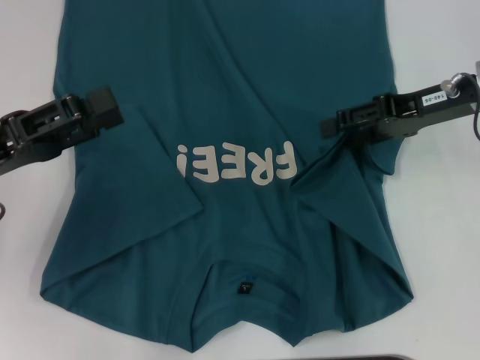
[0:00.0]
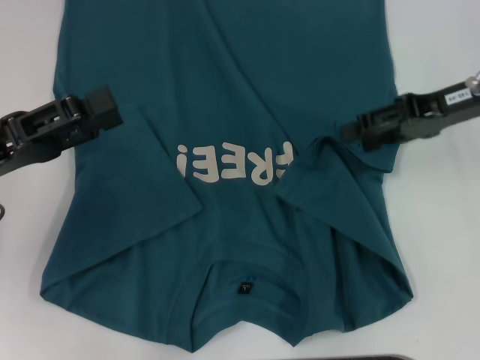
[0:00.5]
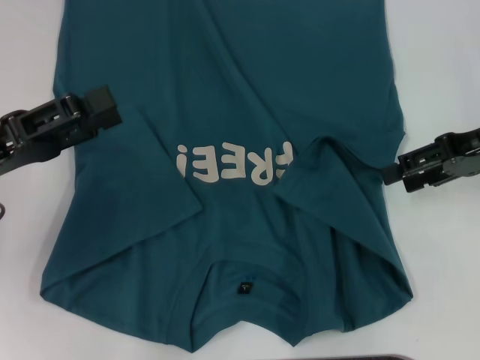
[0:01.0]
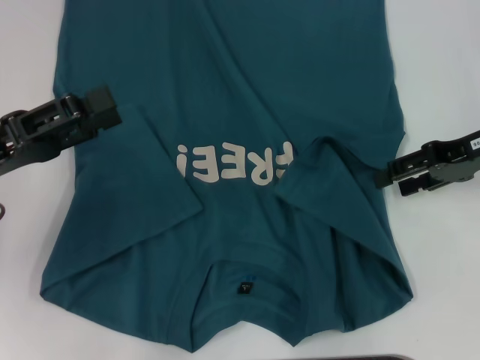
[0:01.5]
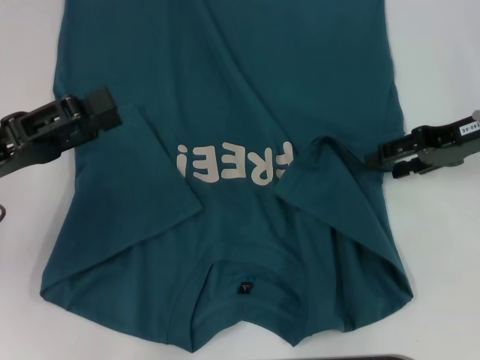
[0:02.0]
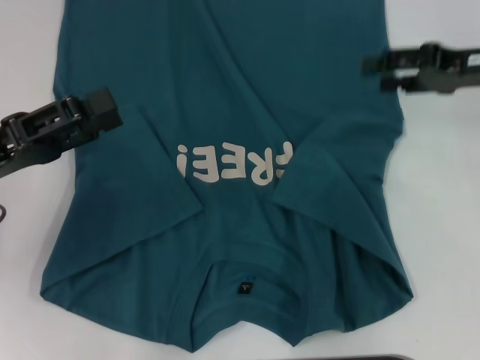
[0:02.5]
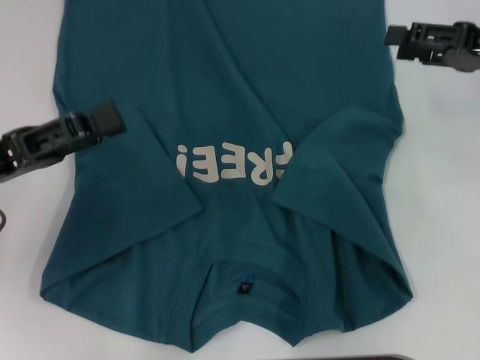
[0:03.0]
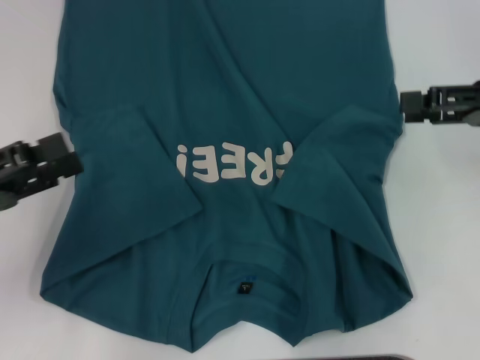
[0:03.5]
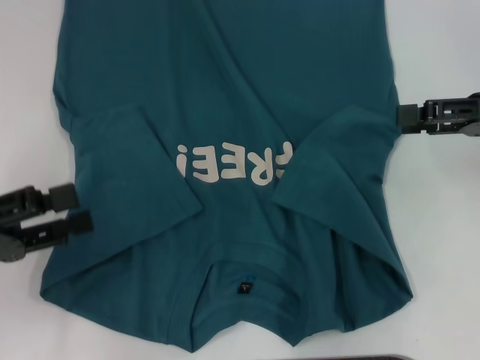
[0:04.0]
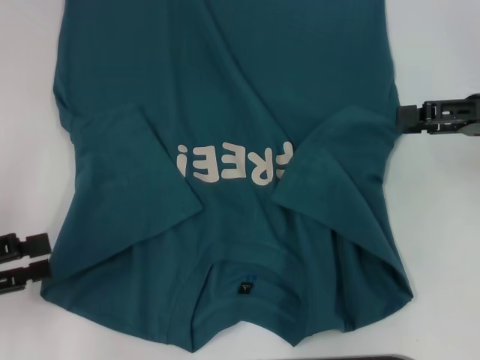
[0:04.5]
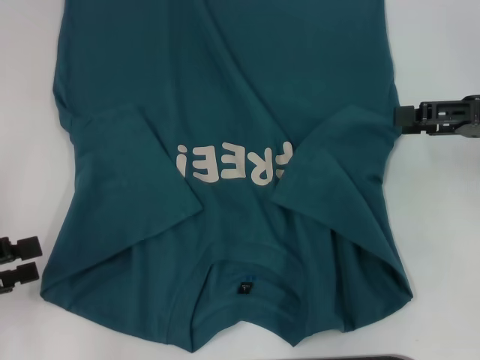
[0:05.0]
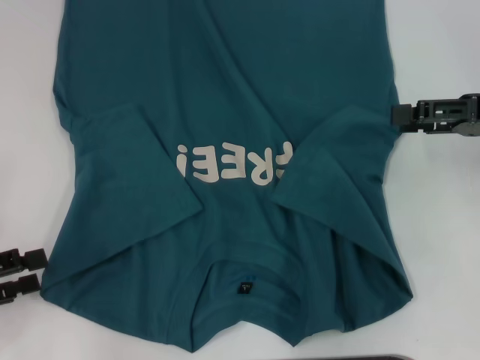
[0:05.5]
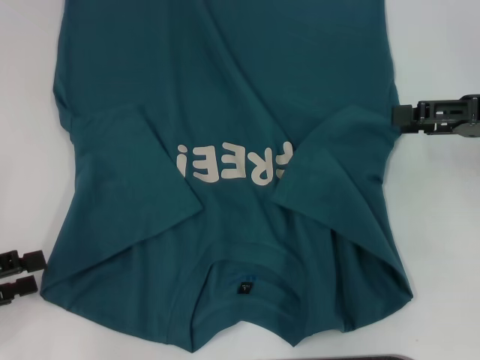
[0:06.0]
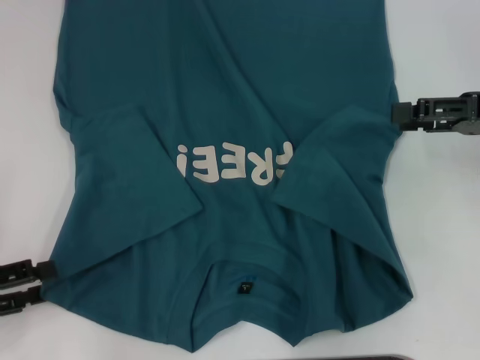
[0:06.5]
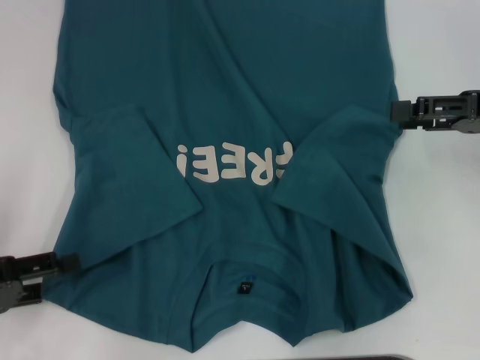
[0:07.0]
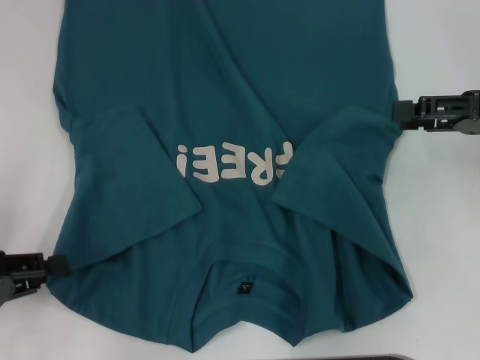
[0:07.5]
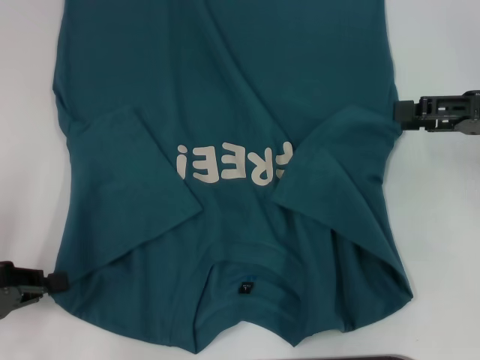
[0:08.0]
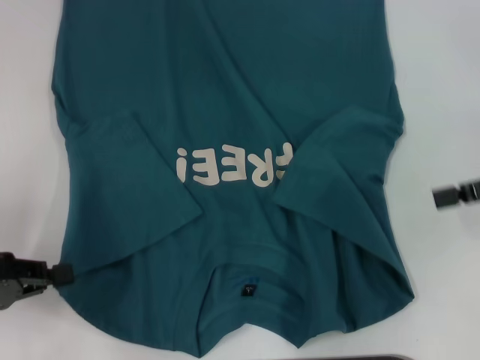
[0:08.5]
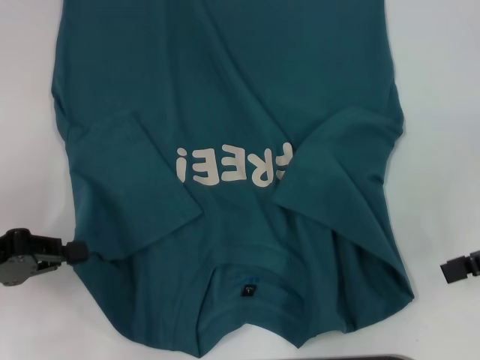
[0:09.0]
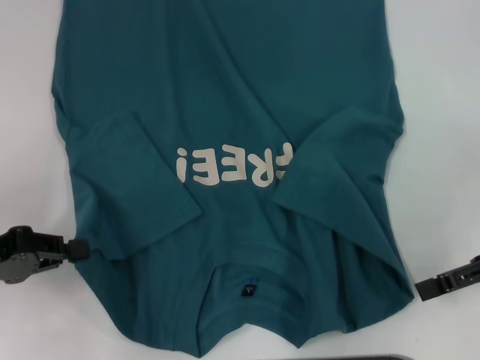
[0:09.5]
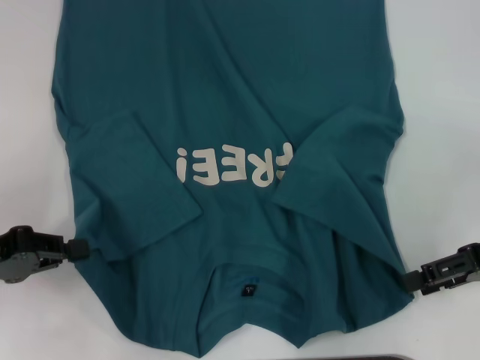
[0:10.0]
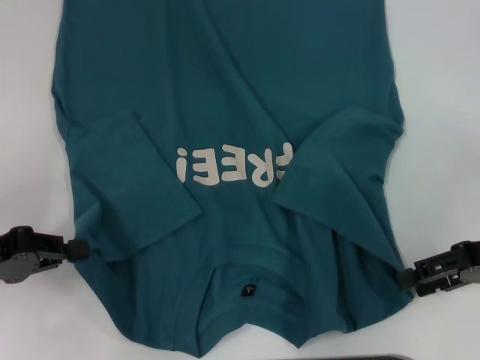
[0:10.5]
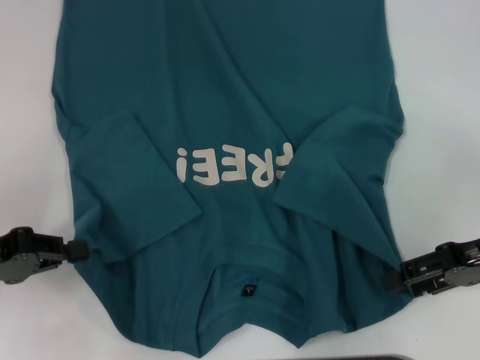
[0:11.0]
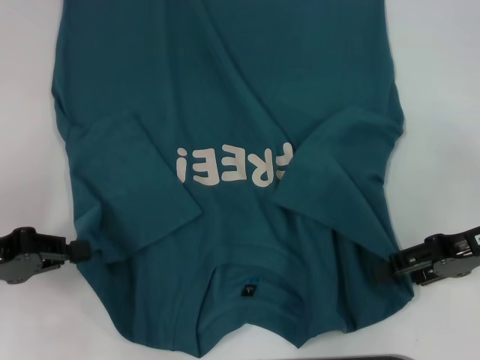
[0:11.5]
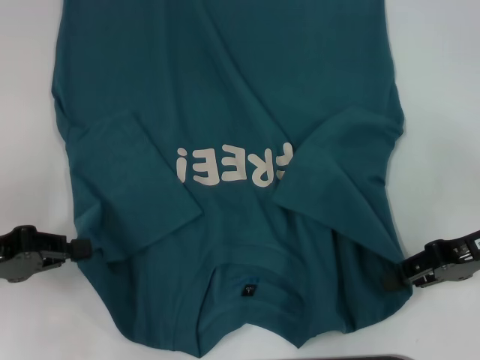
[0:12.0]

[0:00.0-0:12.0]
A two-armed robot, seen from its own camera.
Step, 0:00.0 to 0:02.5: Fold the bottom right sleeve to the right.
Step, 0:03.0 to 0:07.5: Grab the bottom left corner with your left hand.
0:00.0 to 0:02.0: There are only small adjustments of the grippers.
0:02.0 to 0:04.0: The left gripper ends up approximately 5 cm from where it was; the right gripper ends up some 5 cm from where it was.
0:04.0 to 0:06.0: The left gripper moves some 5 cm.
0:06.0 to 0:08.0: The left gripper closes up.
0:08.0 to 0:10.0: The right gripper travels backward by some 5 cm.
0:10.0 to 0:12.0: The grippers make only small movements.

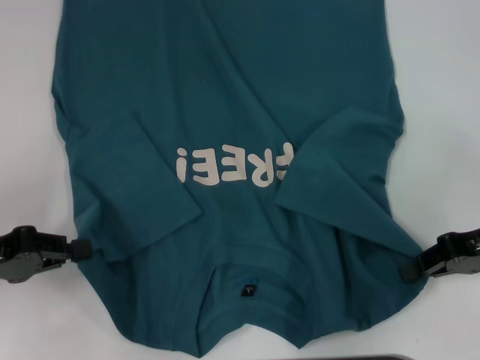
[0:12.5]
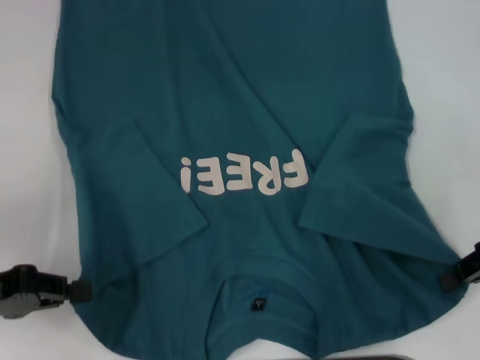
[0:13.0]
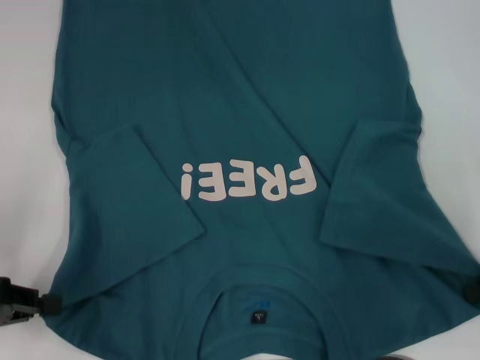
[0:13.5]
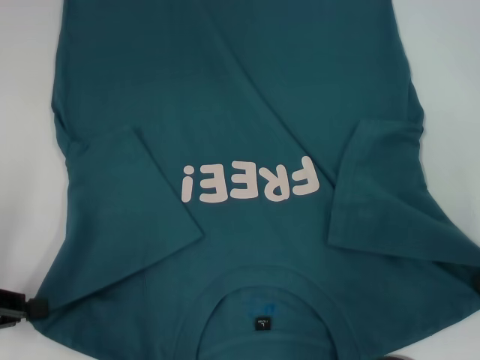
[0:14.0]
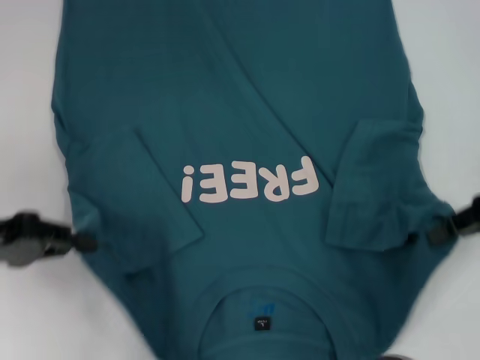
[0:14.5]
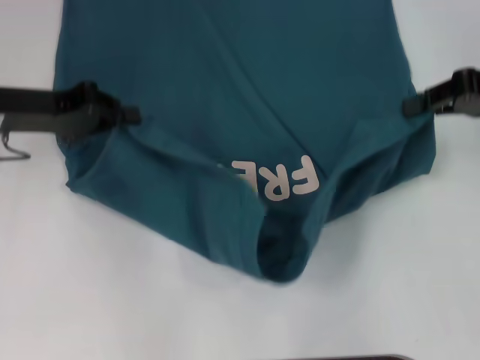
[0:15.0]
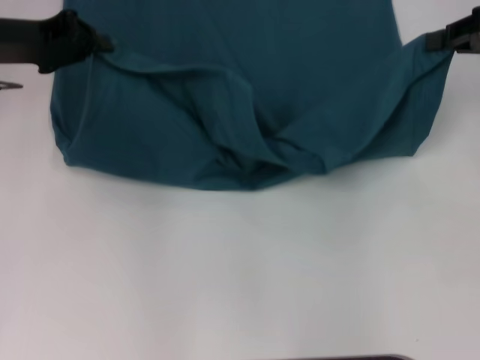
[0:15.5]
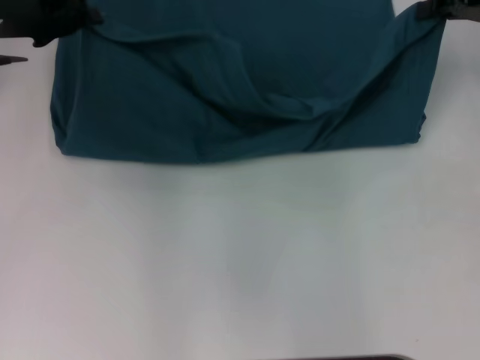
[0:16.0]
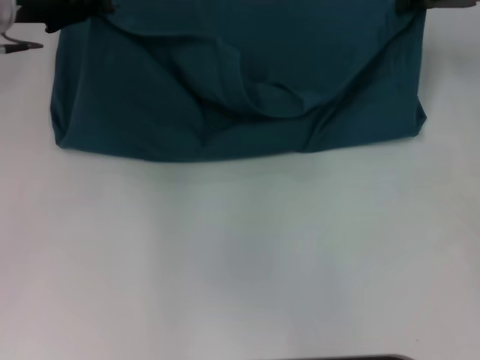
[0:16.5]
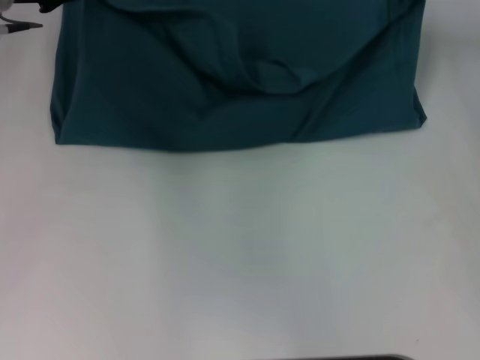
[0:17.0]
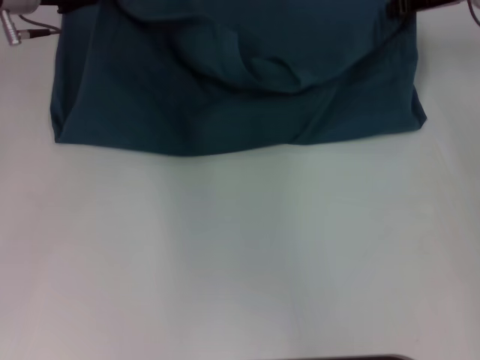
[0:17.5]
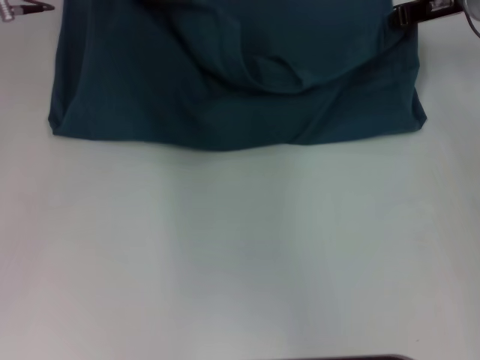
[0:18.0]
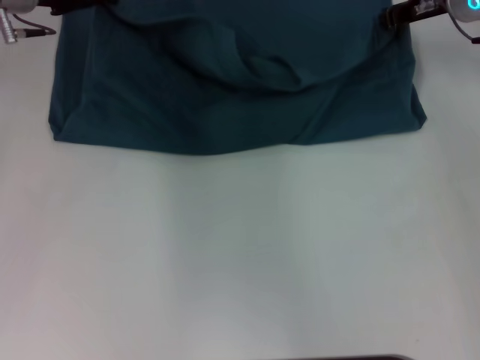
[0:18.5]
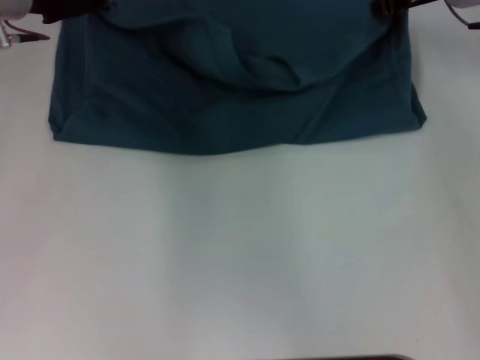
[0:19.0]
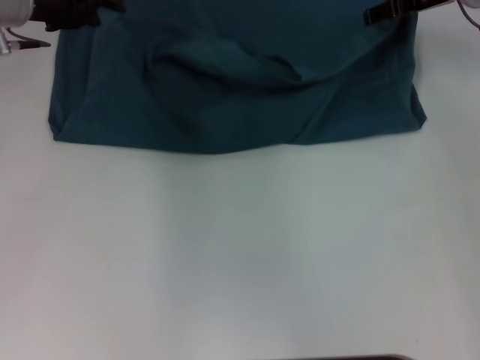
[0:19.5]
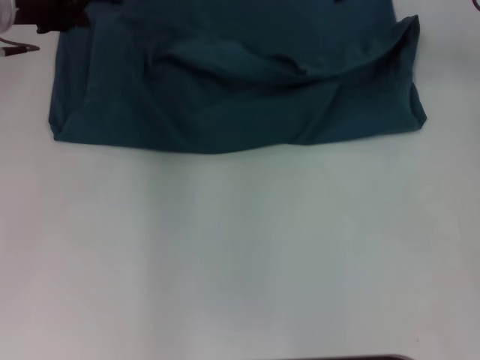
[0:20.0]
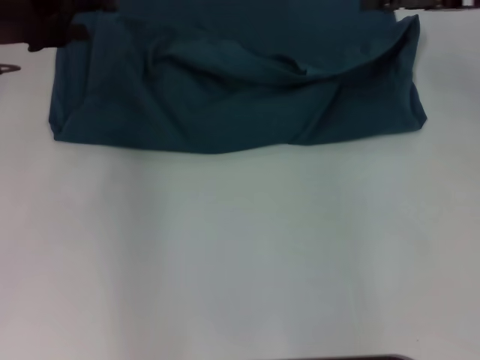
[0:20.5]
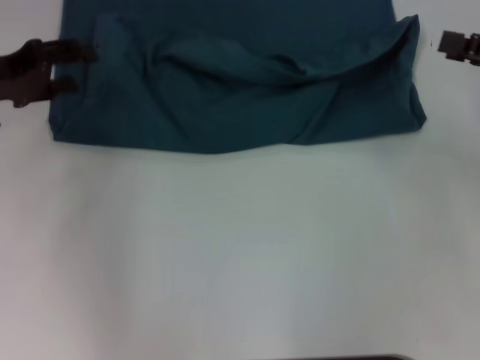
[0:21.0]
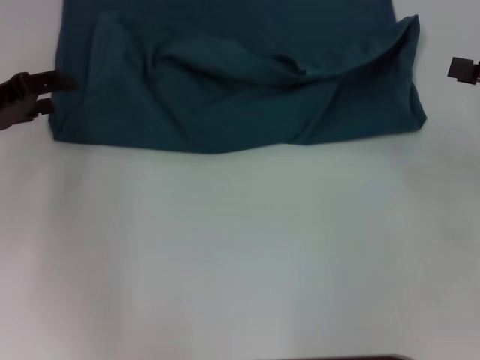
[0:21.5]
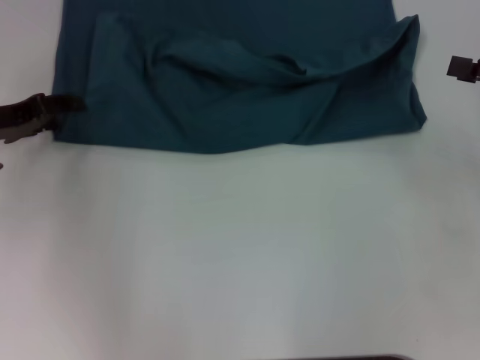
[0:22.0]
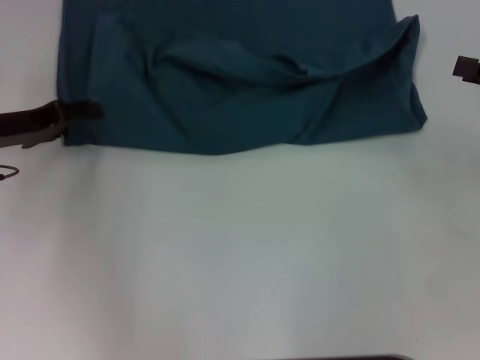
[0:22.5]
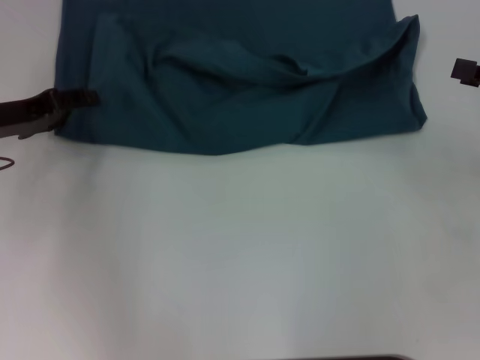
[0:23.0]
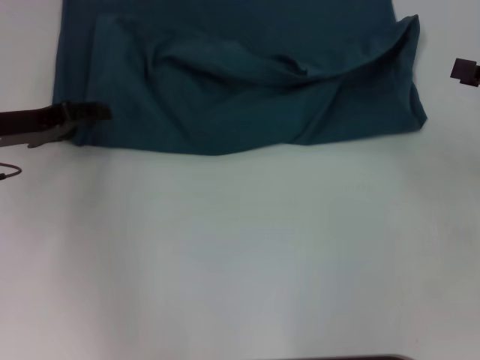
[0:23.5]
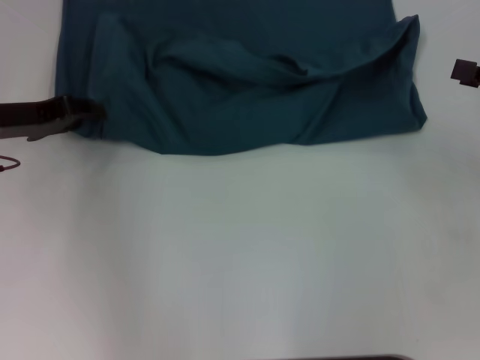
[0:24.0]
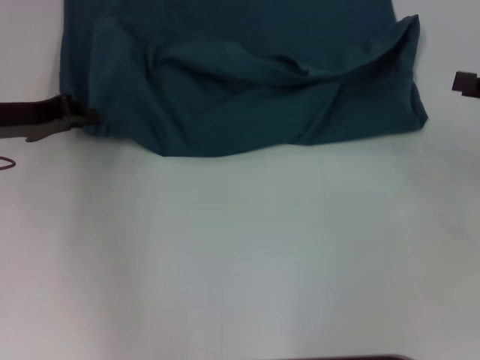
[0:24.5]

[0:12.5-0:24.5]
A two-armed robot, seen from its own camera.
Step, 0:12.5 to 0:19.5: Fold the clothes to the left.
Step, 0:12.5 to 0:19.5: Fold the clothes to the right.
0:12.5 to 0:14.5: The right gripper shifts approximately 5 cm upward.
0:14.5 to 0:16.5: Both grippers move forward, some 15 cm.
0:16.5 to 0:18.5: The right gripper moves approximately 5 cm.
0:18.5 to 0:20.5: The left gripper shifts some 5 cm backward, and opens, while the right gripper heads backward and to the right, covering about 10 cm, and opens its fingers.
0:20.5 to 0:22.5: The left gripper shifts roughly 10 cm downward and backward; the right gripper shifts about 15 cm backward, to the right and downward.
0:22.5 to 0:24.5: The left gripper closes up.

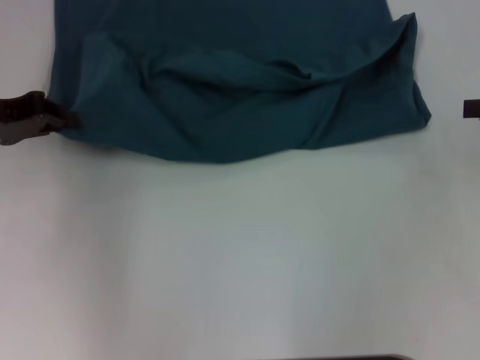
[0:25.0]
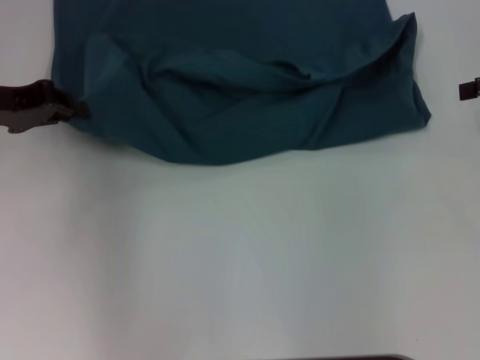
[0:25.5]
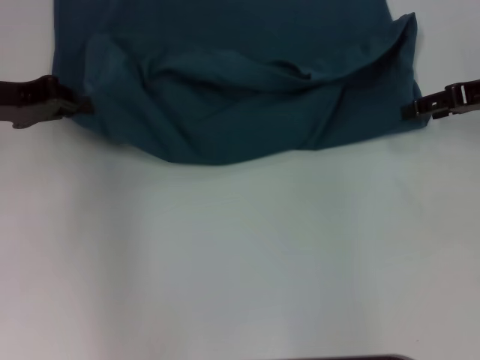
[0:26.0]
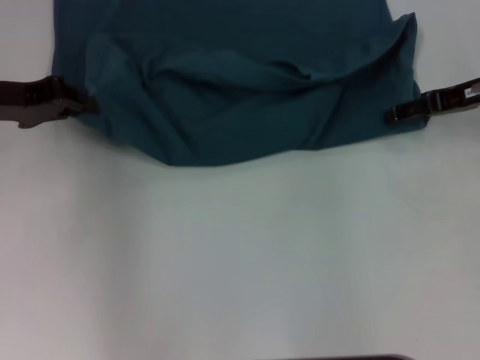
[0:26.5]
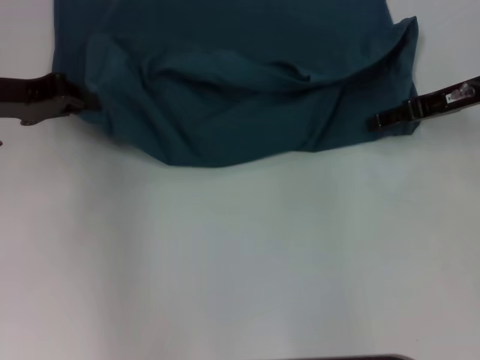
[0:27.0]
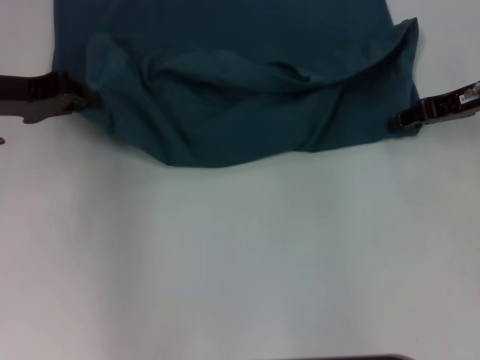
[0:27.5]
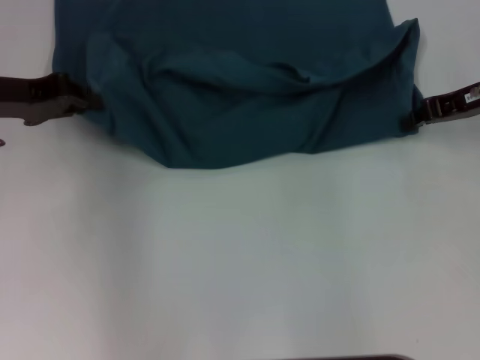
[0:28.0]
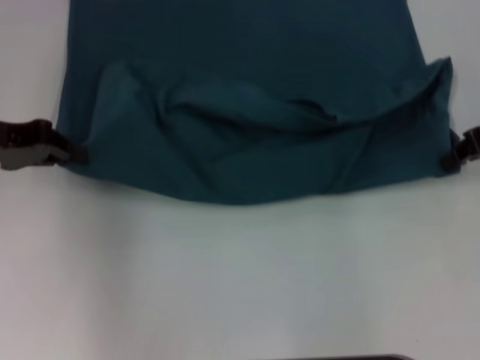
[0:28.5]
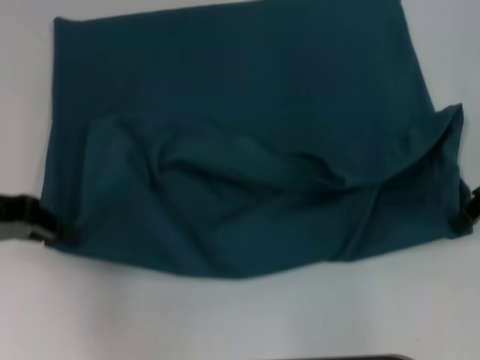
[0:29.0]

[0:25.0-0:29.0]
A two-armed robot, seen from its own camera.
0:25.0 to 0:27.0: The right gripper heads to the left and forward, covering approximately 15 cm.
0:27.0 to 0:29.0: Both grippers move backward, some 5 cm. The right gripper closes.
